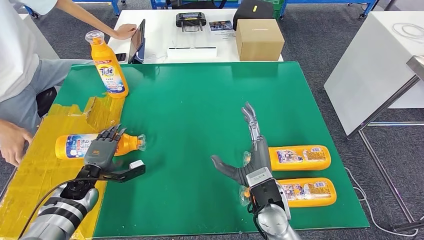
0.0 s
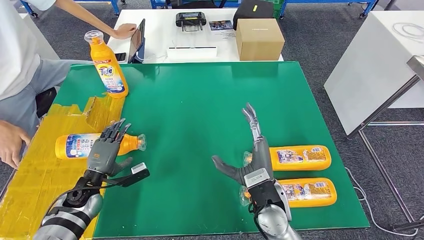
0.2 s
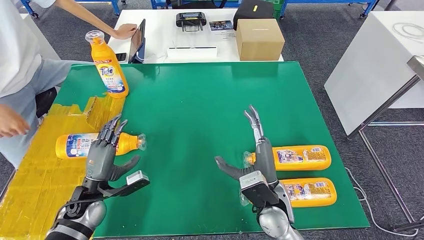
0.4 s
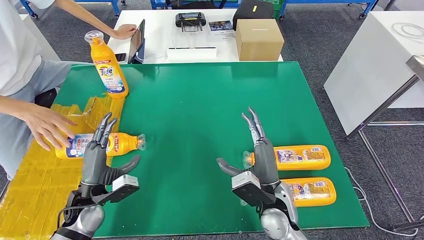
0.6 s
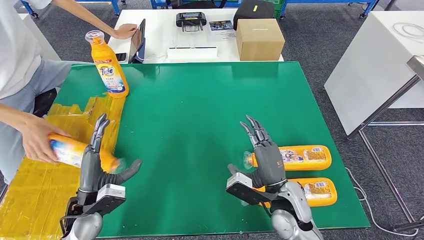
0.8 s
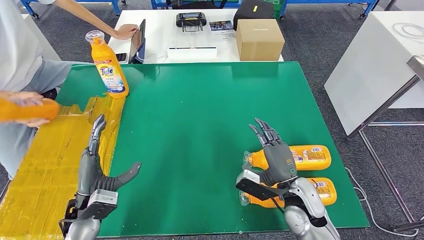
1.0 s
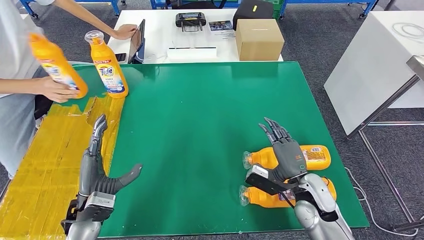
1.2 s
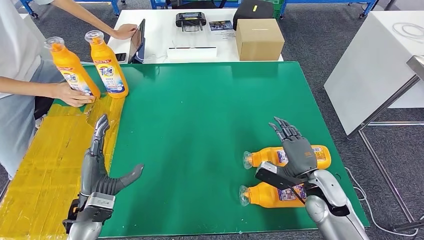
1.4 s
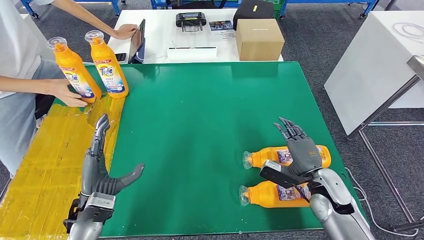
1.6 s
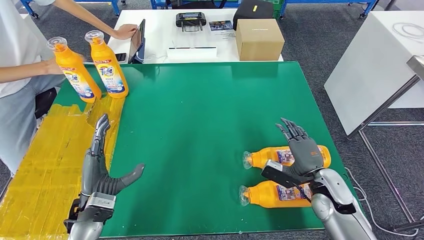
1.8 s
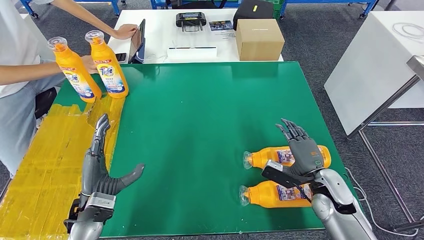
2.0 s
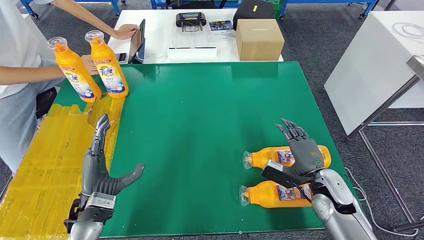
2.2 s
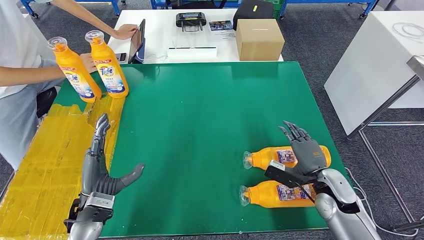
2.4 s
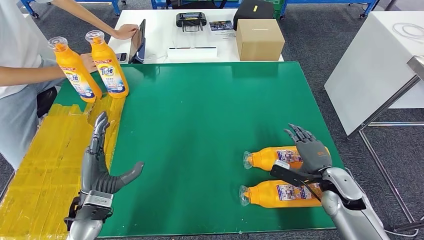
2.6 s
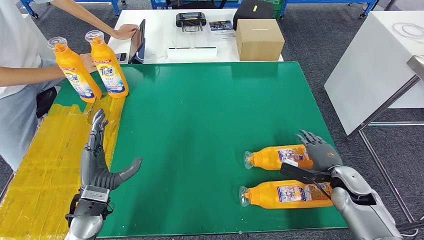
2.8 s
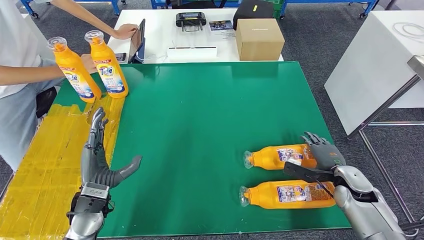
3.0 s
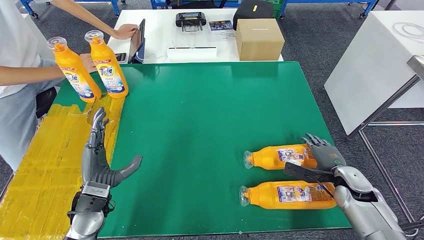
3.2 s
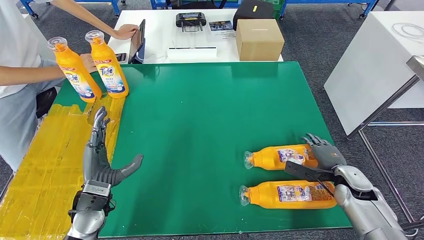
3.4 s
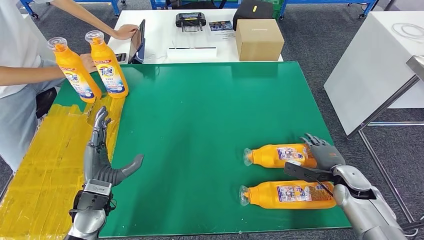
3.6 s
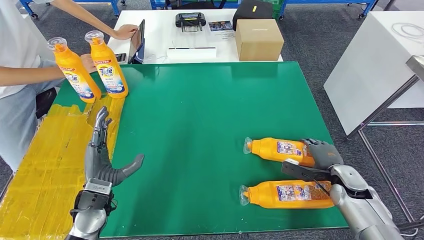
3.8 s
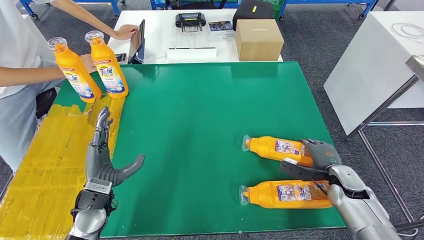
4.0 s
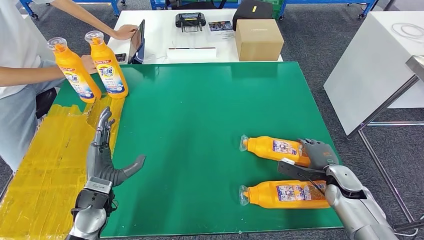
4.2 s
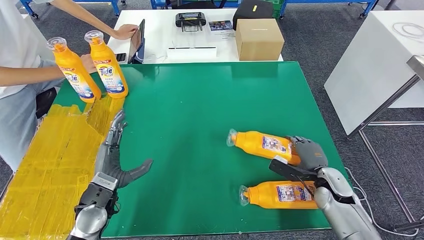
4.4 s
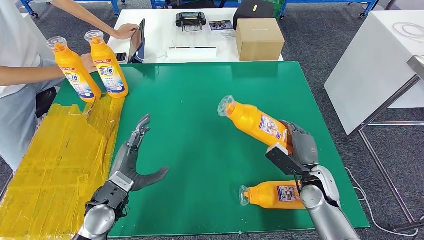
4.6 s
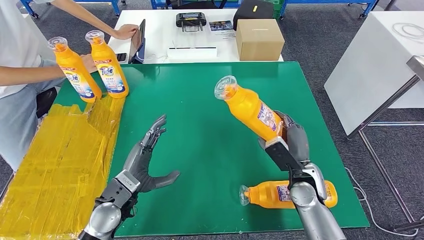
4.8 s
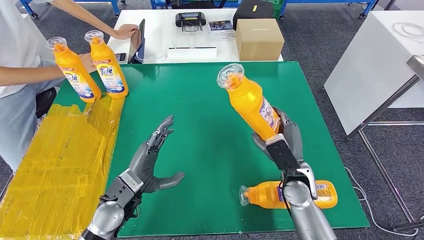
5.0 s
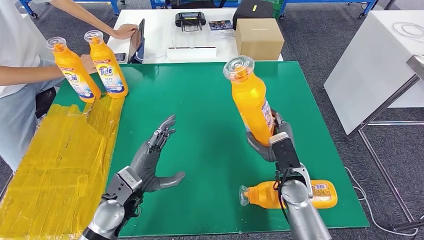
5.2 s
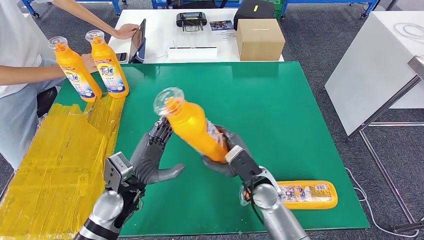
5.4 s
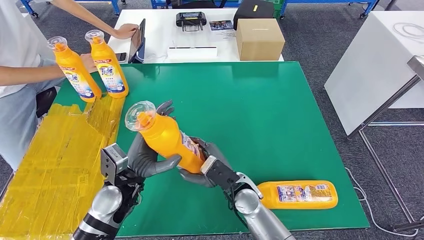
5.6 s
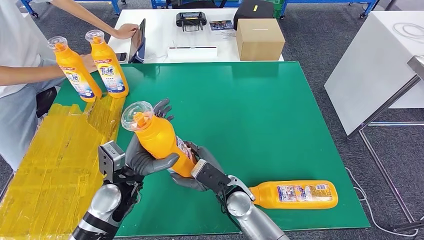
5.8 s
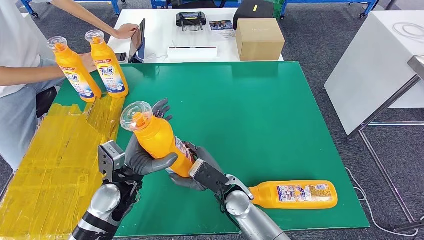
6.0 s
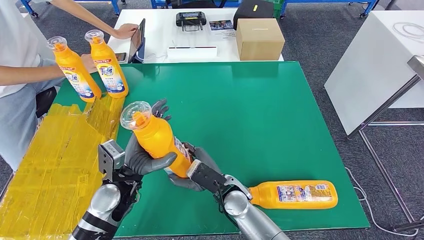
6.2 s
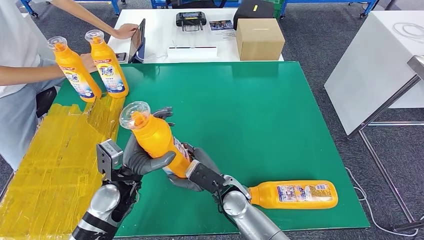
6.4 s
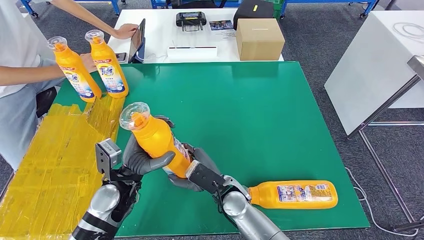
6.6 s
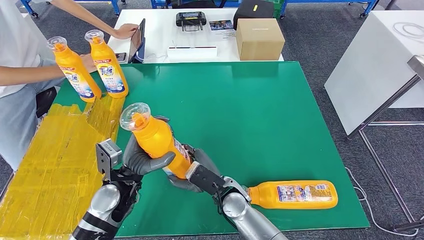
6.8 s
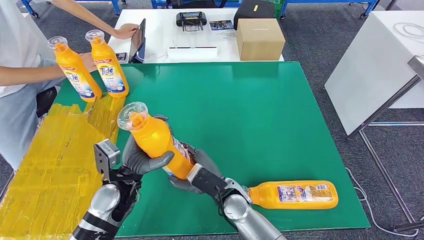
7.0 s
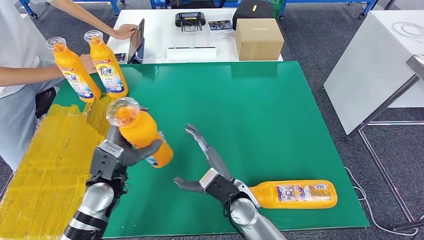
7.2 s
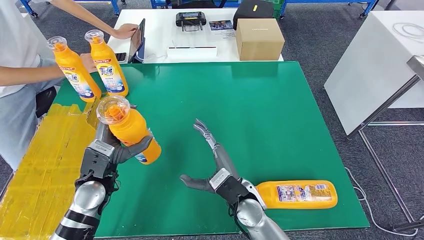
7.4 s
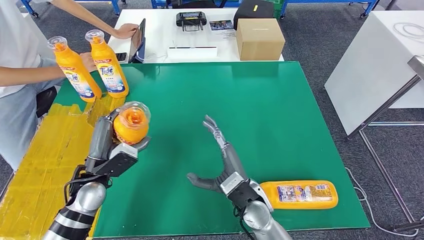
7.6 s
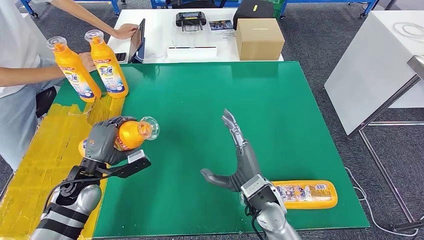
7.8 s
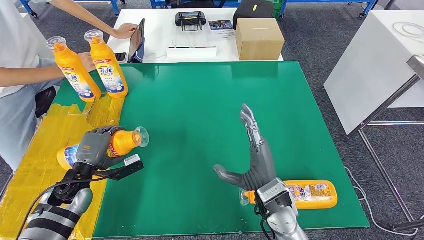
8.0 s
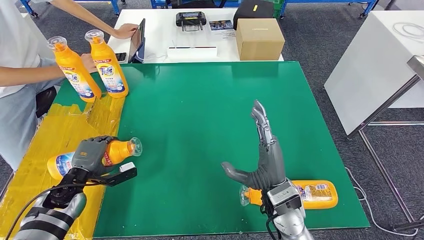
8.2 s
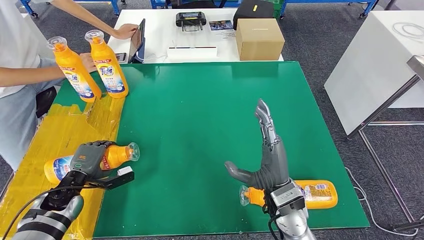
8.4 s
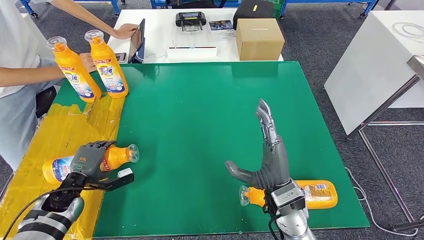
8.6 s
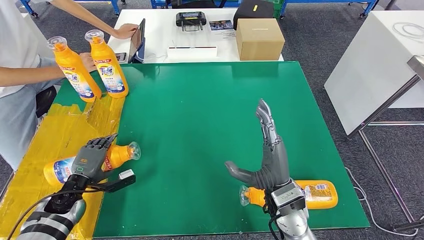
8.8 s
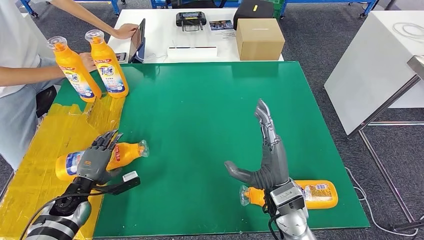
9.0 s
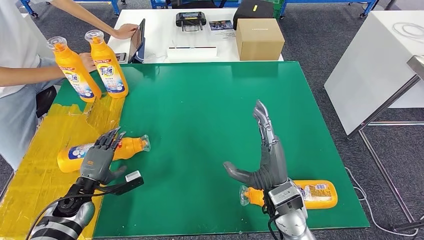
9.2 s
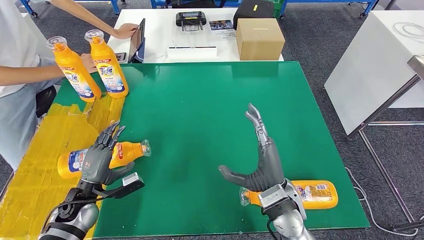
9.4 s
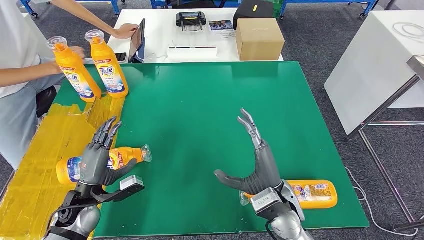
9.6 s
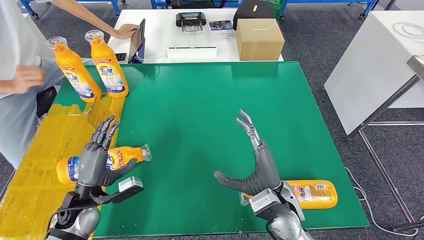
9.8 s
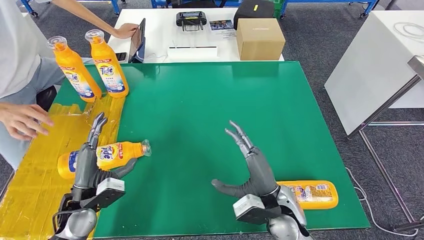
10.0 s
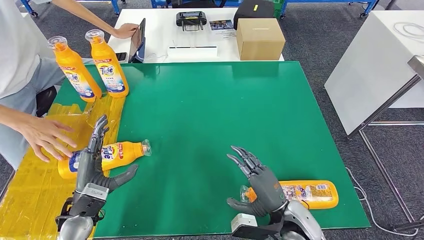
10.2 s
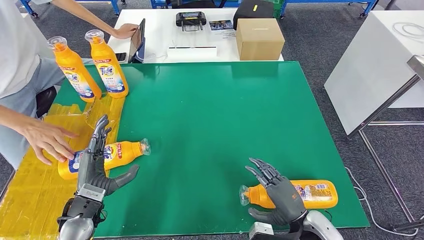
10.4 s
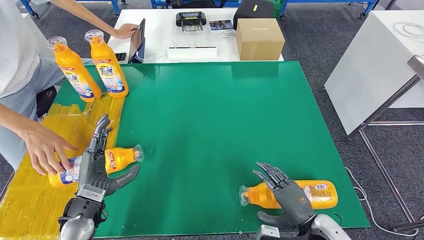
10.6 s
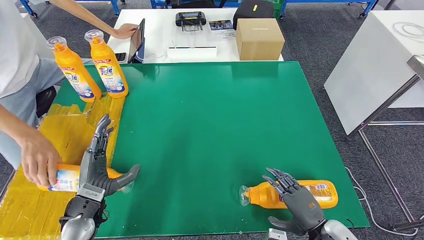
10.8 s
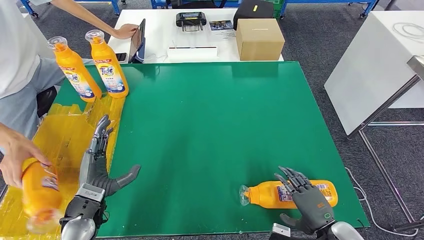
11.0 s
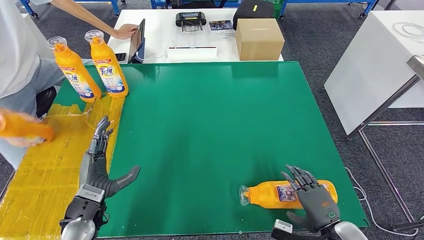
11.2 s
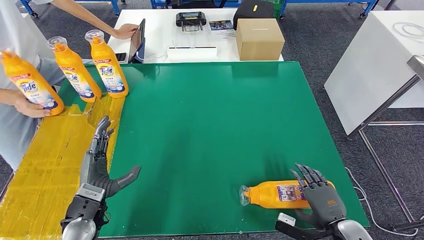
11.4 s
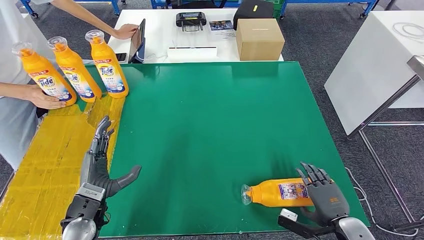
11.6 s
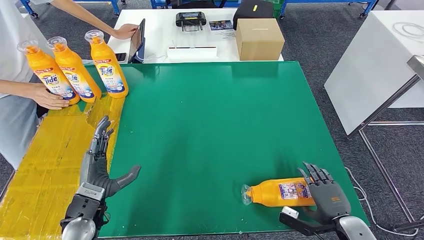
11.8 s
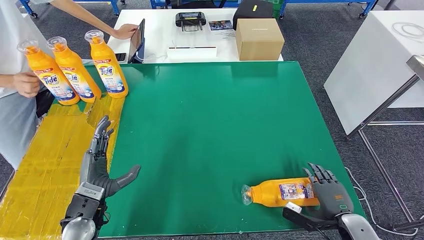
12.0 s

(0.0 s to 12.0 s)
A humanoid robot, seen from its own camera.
Step, 2.2 s - 5.6 s: Pick up the bottle from the table.
Step, 5.8 s - 9.8 s: Flip the bottle to face forward.
1.6 s - 3.0 s: The right hand is displaced to the right by about 10 cm.
3.0 s - 4.4 s: The hands move only a little.
4.4 s - 6.0 s: The left hand shifts some 5 cm to the right, while the right hand heads to the left, covering approximately 30 cm.
6.0 s - 7.6 s: The right hand shifts by some 5 cm; the left hand heads to the left, covering roughly 10 cm.
7.6 s - 9.0 s: The left hand heads downward and to the left, covering some 15 cm. The right hand moves to the right, approximately 5 cm.
9.0 s - 10.4 s: The right hand shifts approximately 15 cm to the right, downward and backward; the left hand goes approximately 10 cm to the right, upward and backward.
10.4 s - 12.0 s: The right hand travels to the right by some 10 cm.

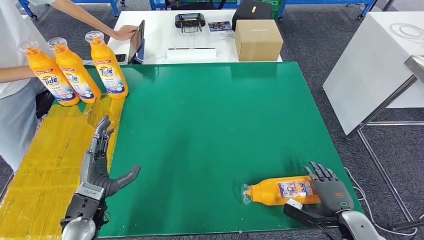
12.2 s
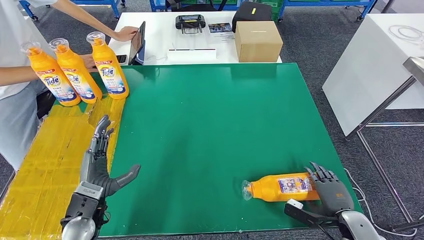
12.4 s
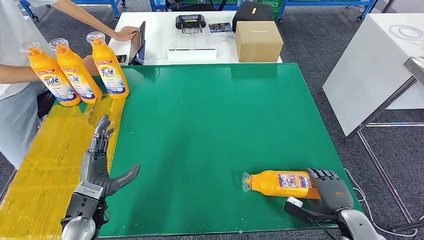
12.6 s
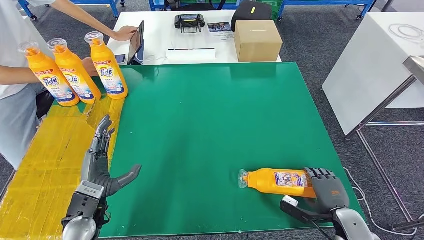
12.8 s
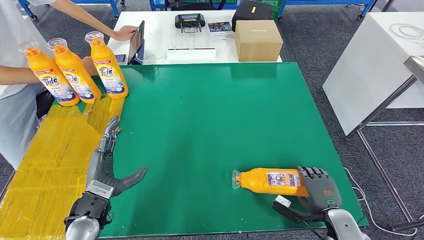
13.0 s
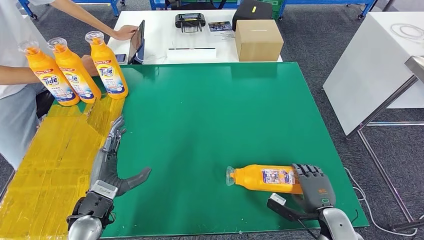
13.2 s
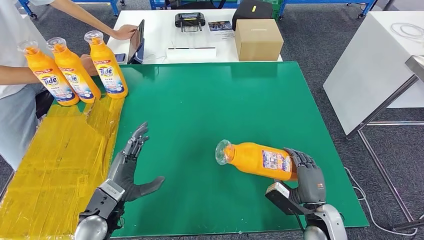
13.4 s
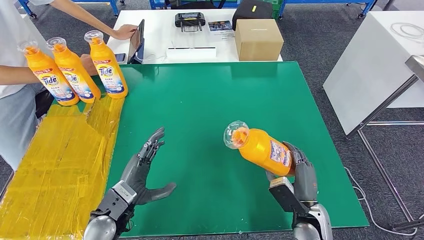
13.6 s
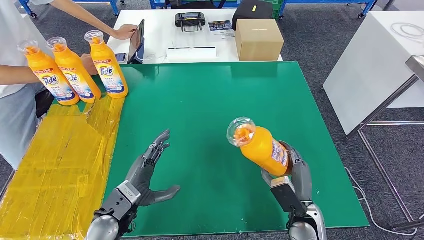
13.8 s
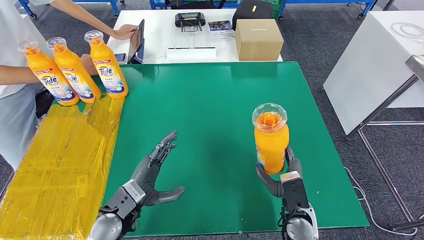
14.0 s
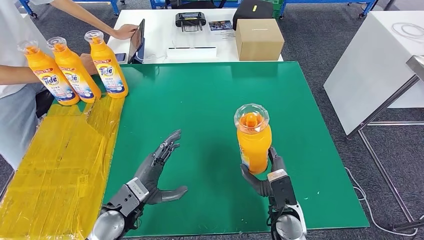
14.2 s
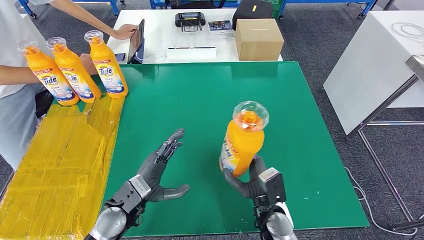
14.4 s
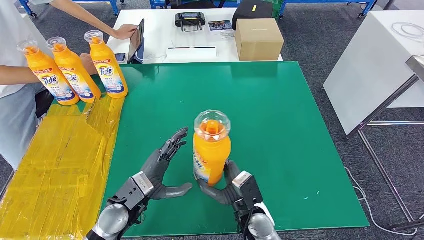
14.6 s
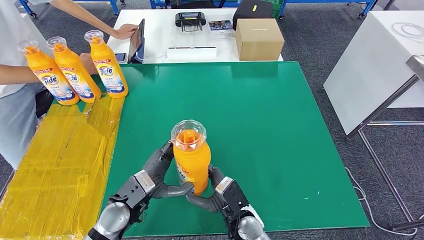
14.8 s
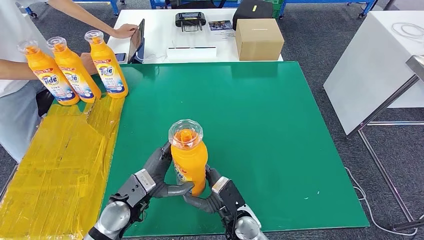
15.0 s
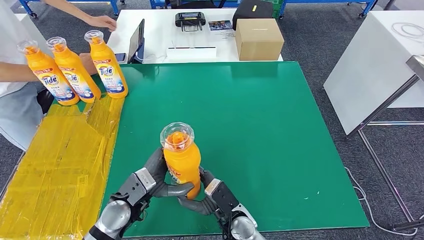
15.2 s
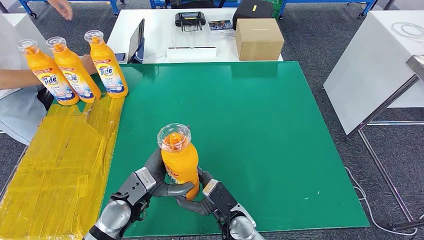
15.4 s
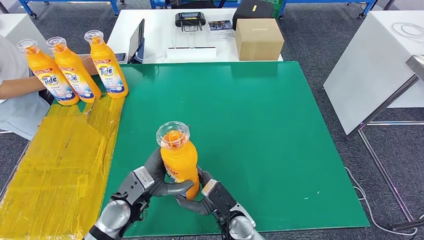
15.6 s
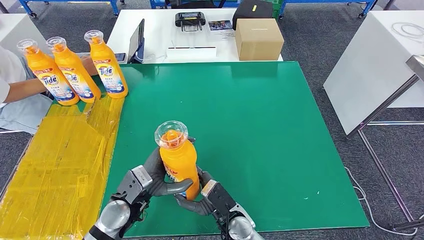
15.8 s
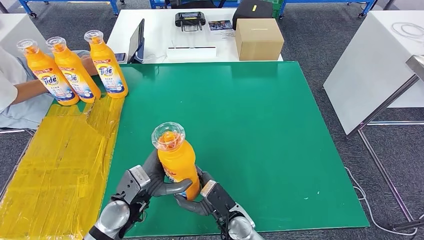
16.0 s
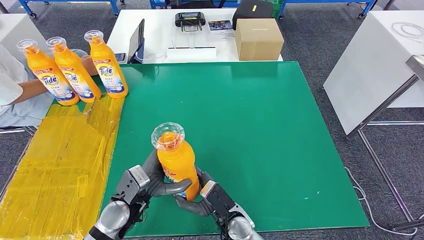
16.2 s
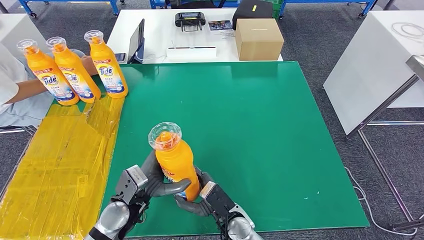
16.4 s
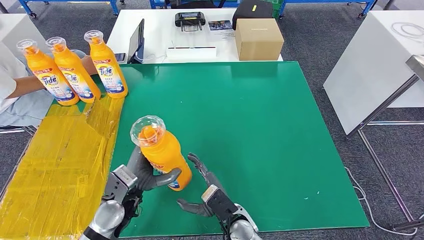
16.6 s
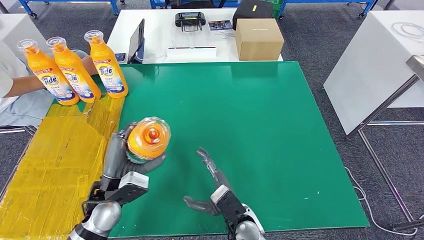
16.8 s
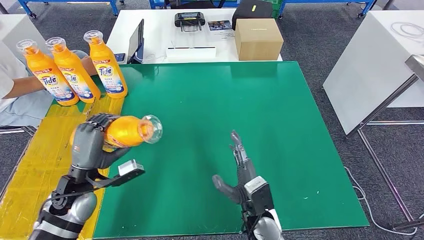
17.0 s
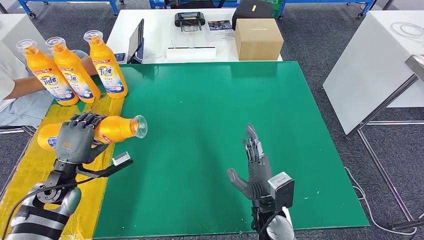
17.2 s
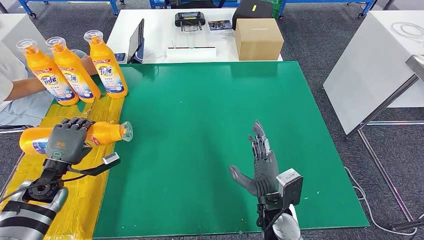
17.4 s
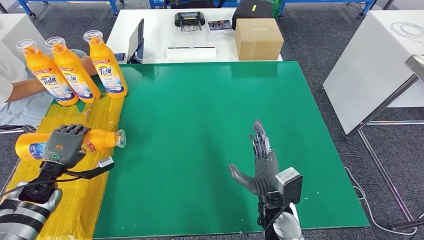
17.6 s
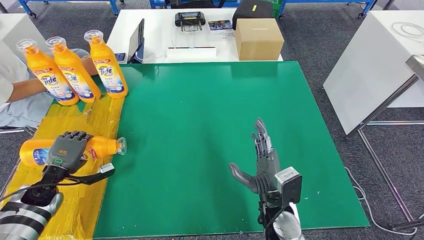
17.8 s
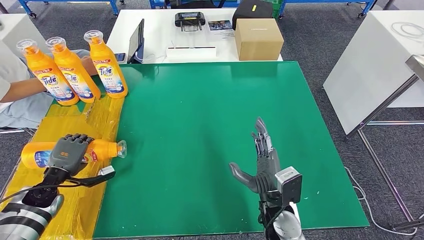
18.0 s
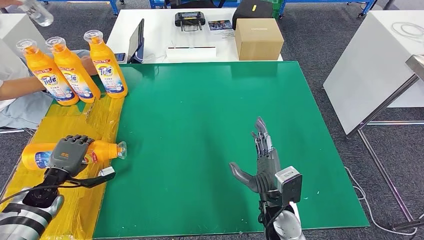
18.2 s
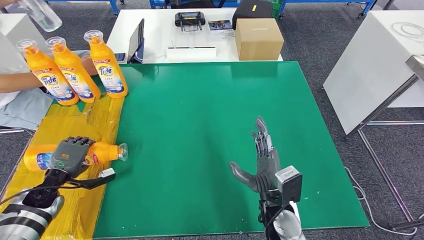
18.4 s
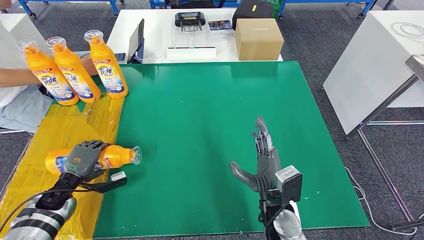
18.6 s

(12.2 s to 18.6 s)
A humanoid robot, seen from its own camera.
Step, 12.2 s - 15.4 s: Pick up the bottle from the table.
12.2 s - 13.8 s: The left hand travels to the right by roughly 5 cm. Meanwhile the right hand is displaced to the left by some 15 cm.
13.8 s - 15.4 s: The right hand goes some 20 cm to the left.
15.4 s - 17.0 s: The left hand moves to the left, about 10 cm; the right hand heads to the right, covering approximately 5 cm.
17.0 s - 18.6 s: The left hand heads to the left and downward, covering about 15 cm. Meanwhile the right hand ends up about 5 cm from where it was.
